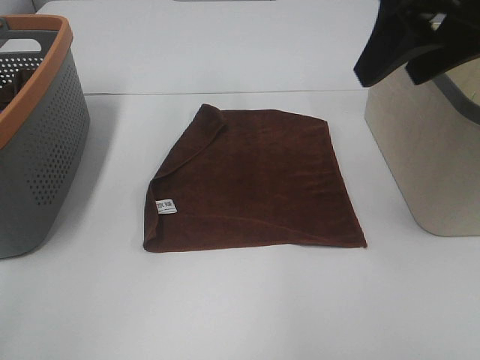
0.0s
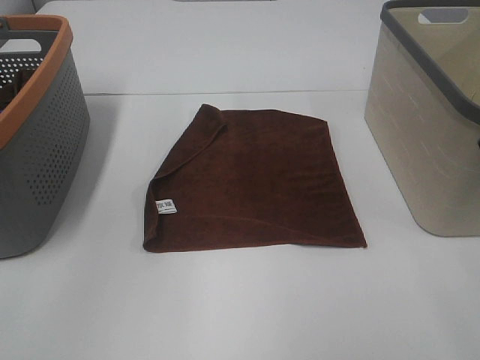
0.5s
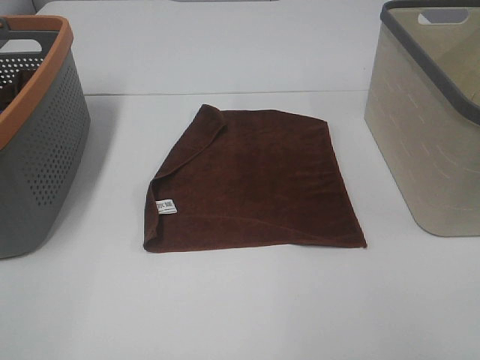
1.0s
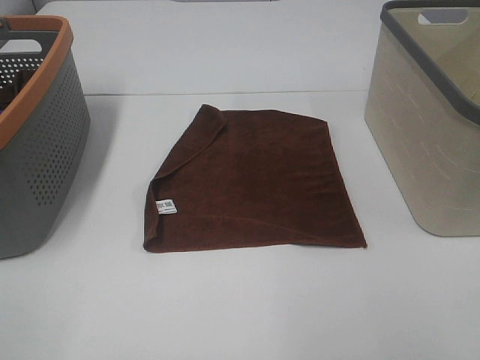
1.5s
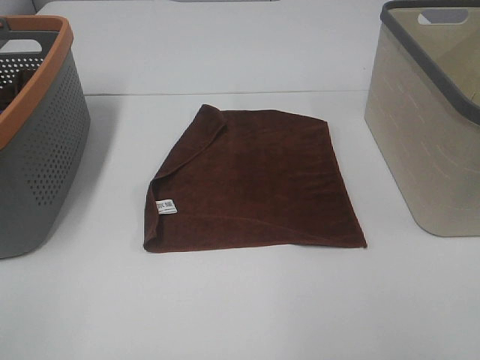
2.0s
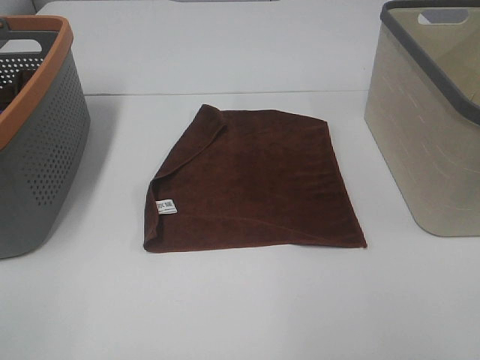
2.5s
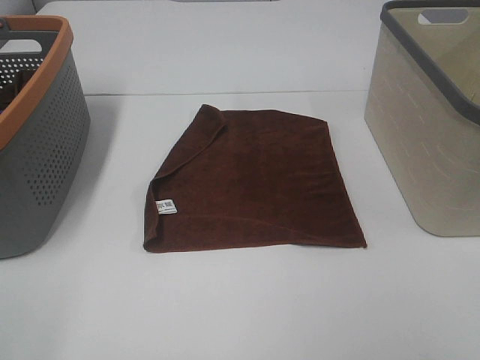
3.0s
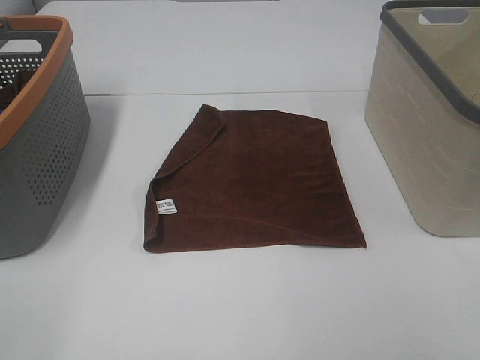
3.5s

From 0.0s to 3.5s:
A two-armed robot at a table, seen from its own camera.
Task of the whole recording: Remove the towel and place it.
From 0.0s to 2.0s: The left gripper is displaced backward, to the left and downward by some 40 cm. The right gripper goes roughly 25 cm backward.

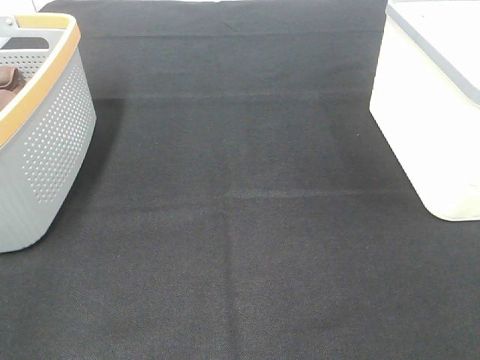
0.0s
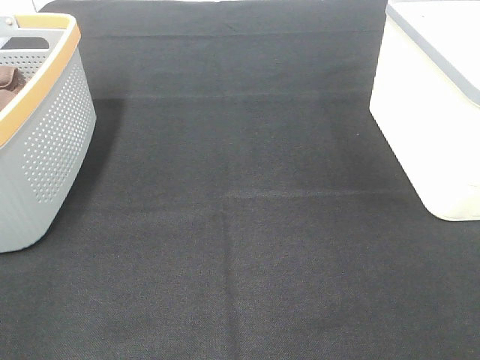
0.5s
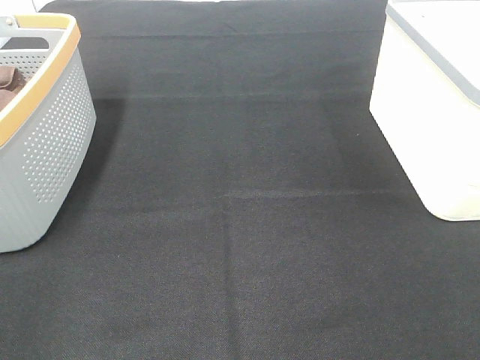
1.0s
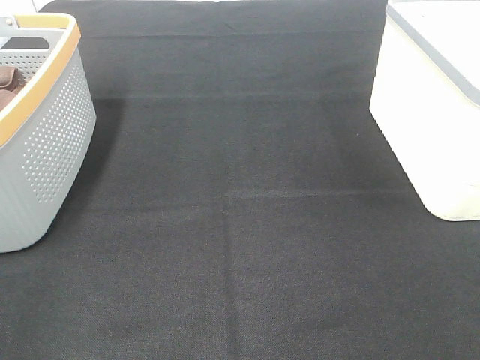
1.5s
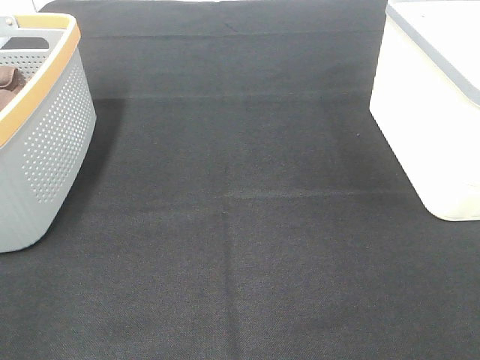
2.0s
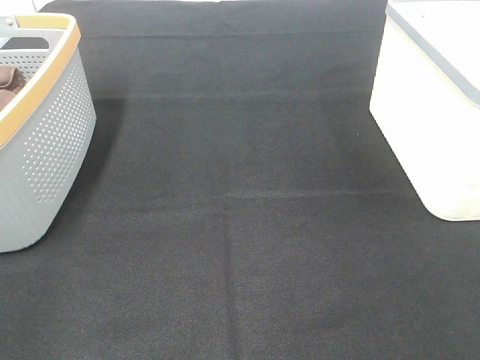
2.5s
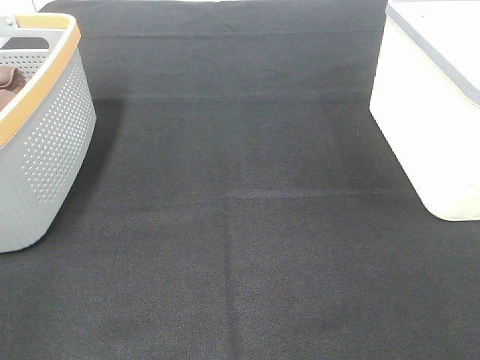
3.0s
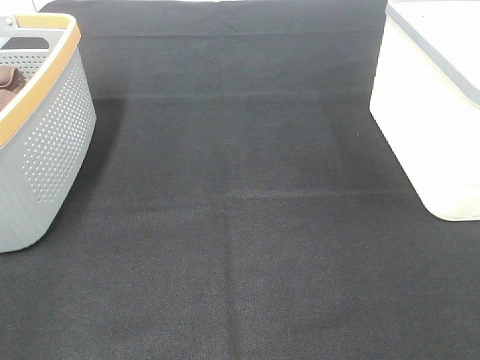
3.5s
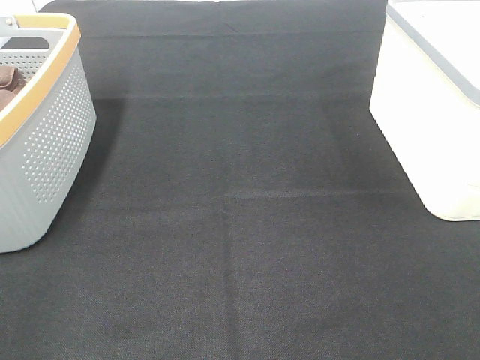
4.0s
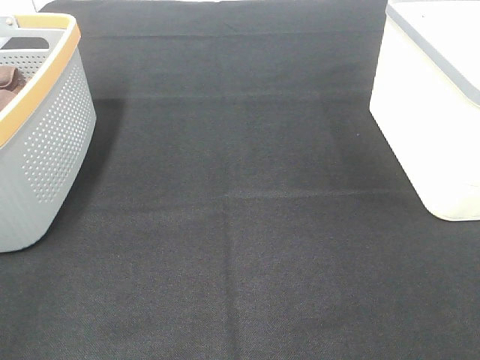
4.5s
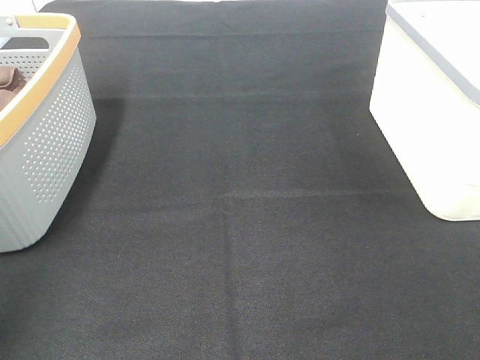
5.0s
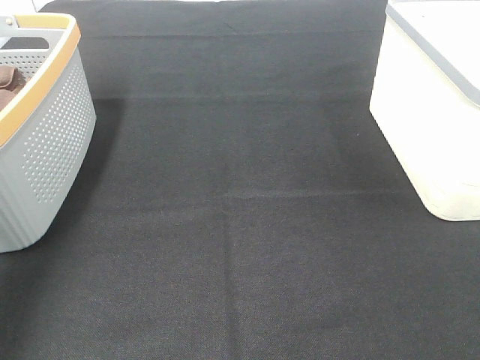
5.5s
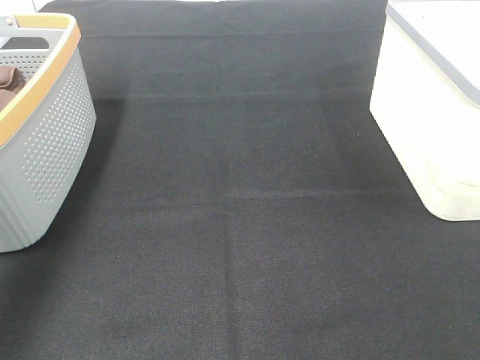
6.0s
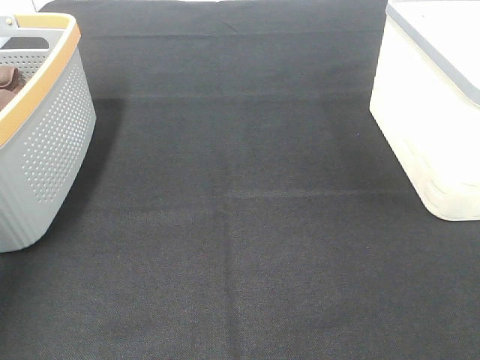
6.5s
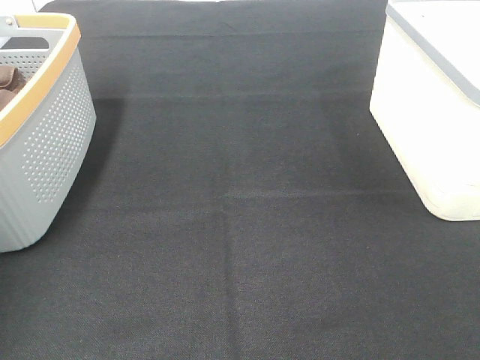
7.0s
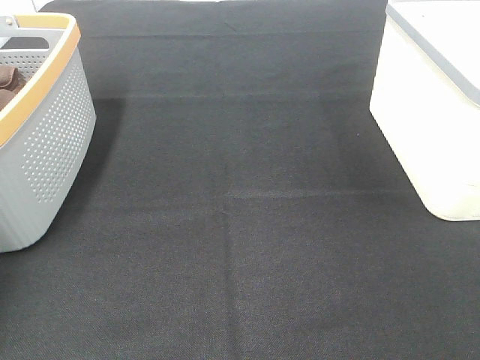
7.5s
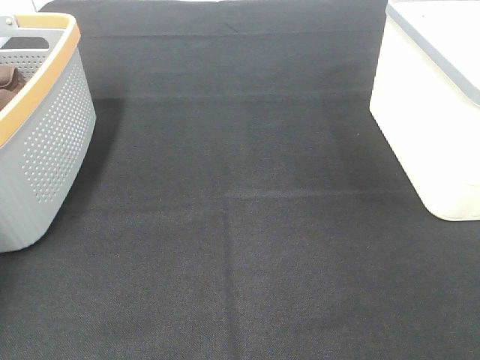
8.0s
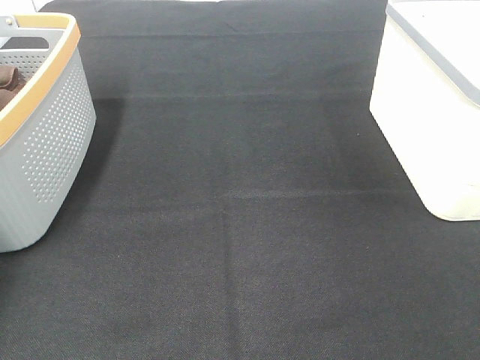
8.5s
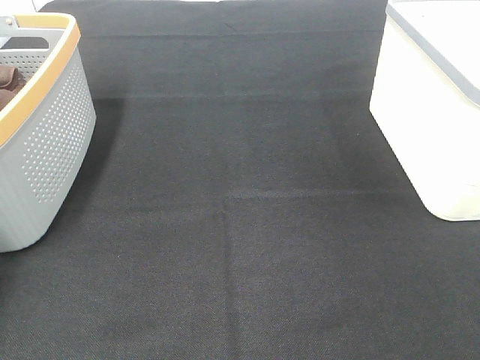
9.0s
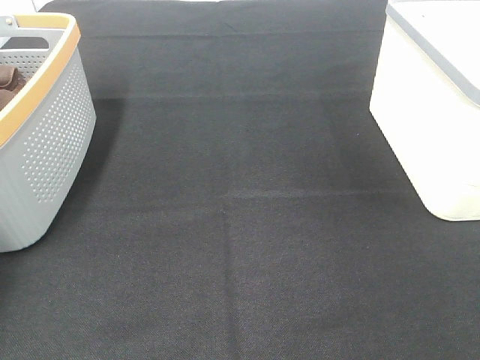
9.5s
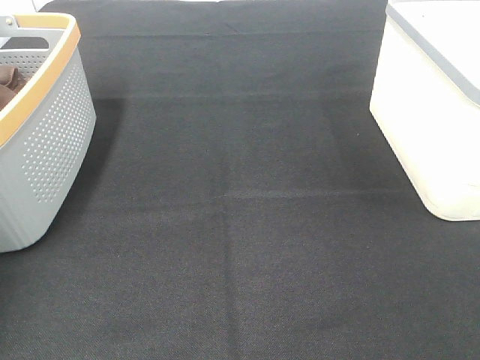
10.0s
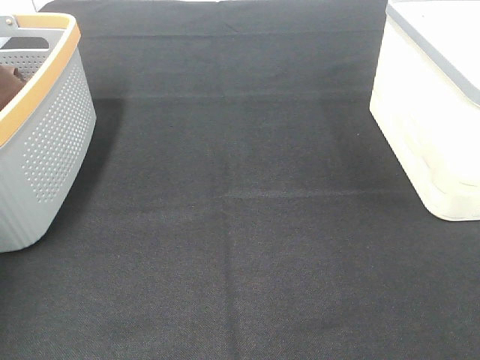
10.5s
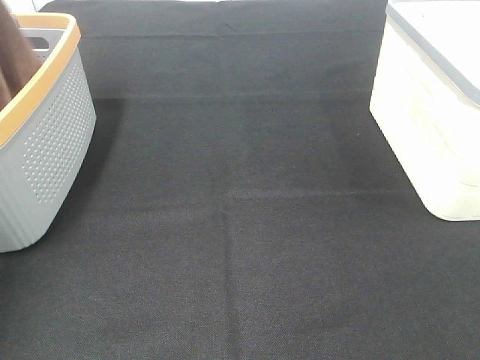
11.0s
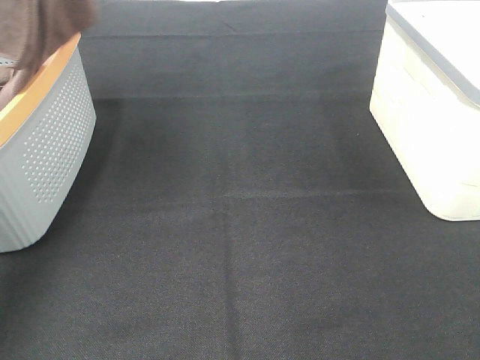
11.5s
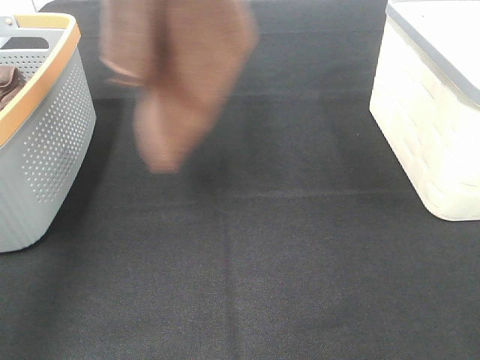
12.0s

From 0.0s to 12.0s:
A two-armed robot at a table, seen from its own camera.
Task of the whole recording: Remove the towel and place it.
From 0.0s to 4.0s: The two grippers keep their place.
From 4.0s to 6.0s: The left gripper goes about 30 cm forward.
From 6.0s to 8.0s: The left gripper travels forward, to the left and downward by about 20 cm.
From 10.0s to 12.0s: The left gripper goes roughly 30 cm to the right, upward and backward.

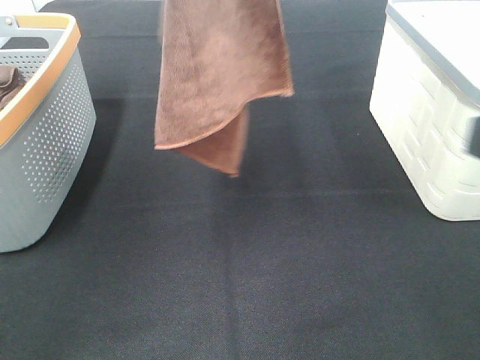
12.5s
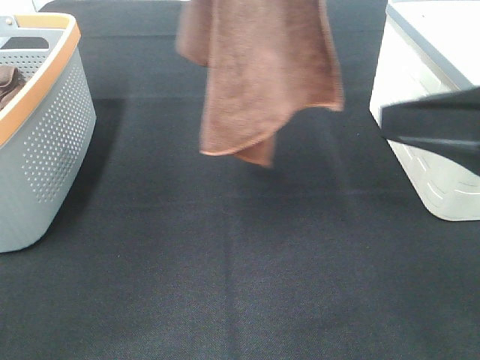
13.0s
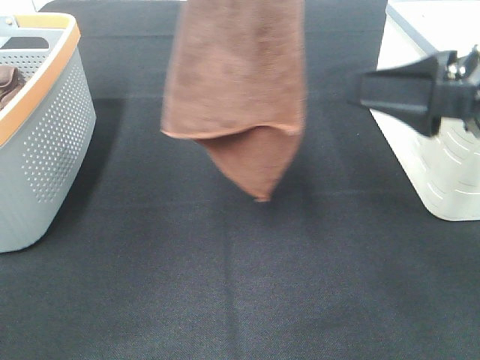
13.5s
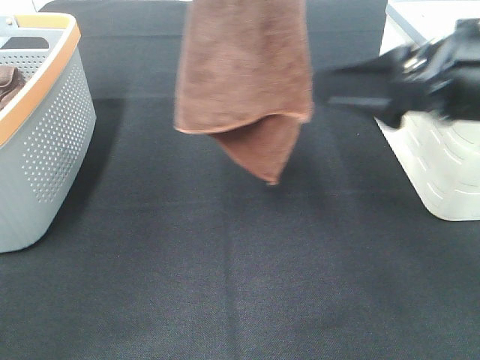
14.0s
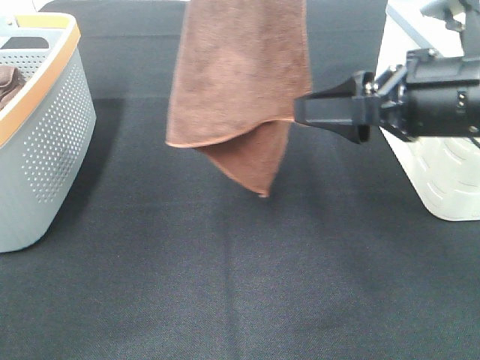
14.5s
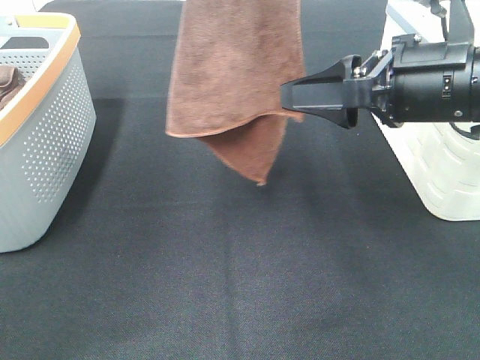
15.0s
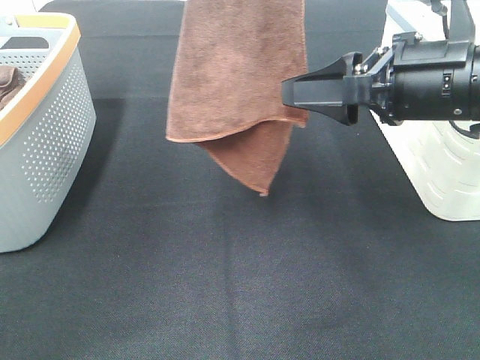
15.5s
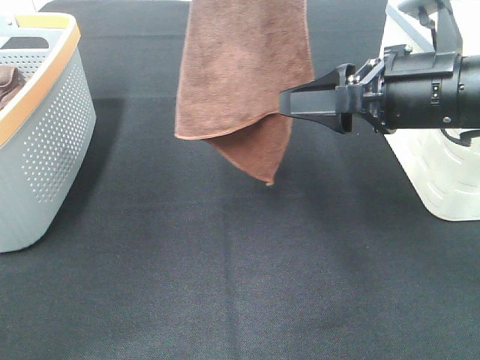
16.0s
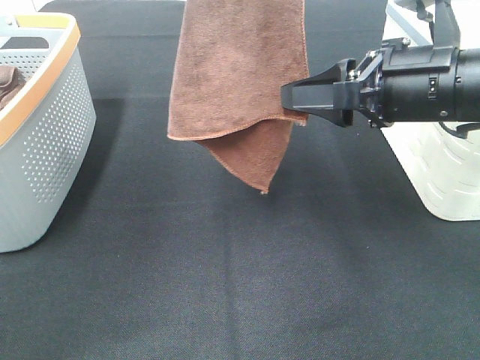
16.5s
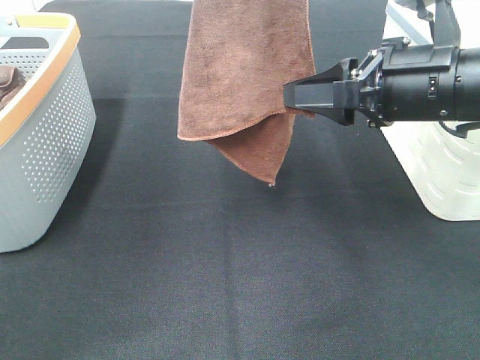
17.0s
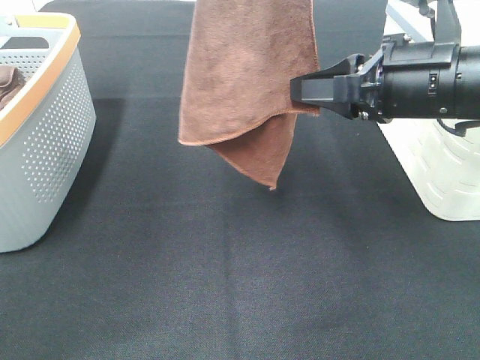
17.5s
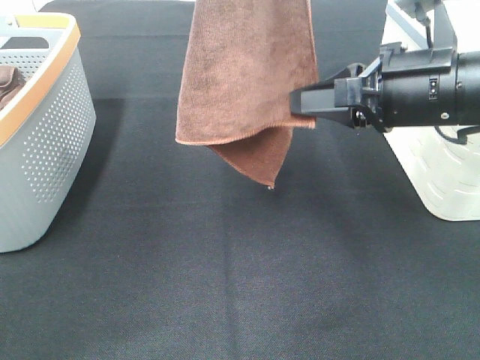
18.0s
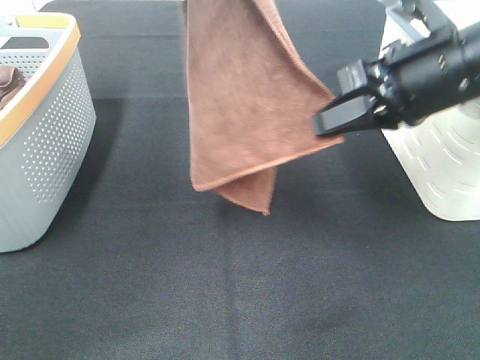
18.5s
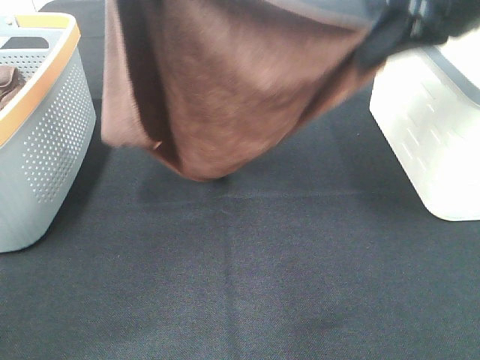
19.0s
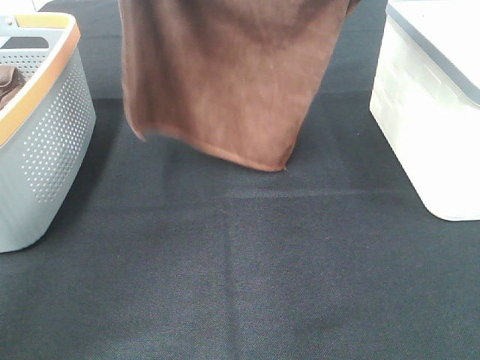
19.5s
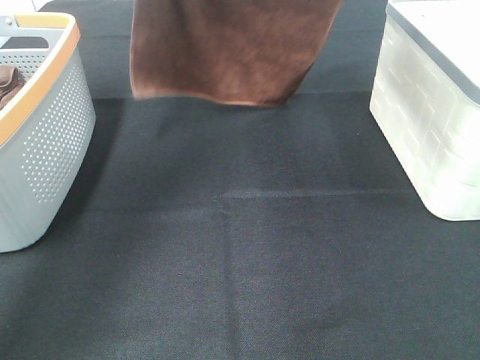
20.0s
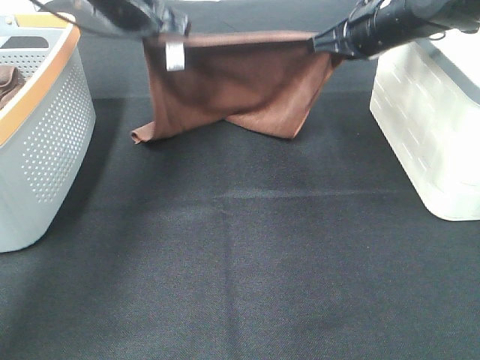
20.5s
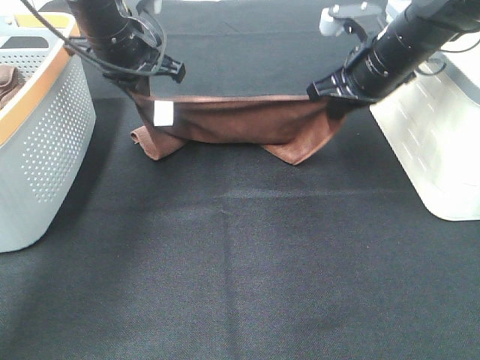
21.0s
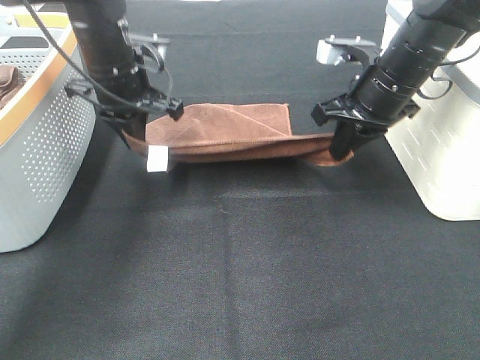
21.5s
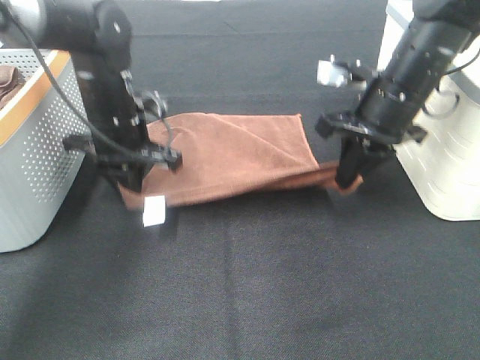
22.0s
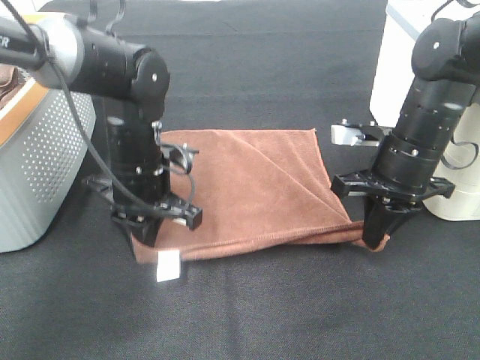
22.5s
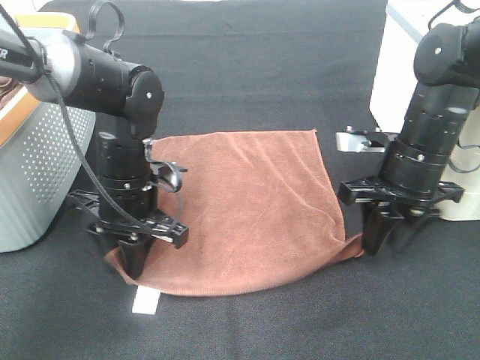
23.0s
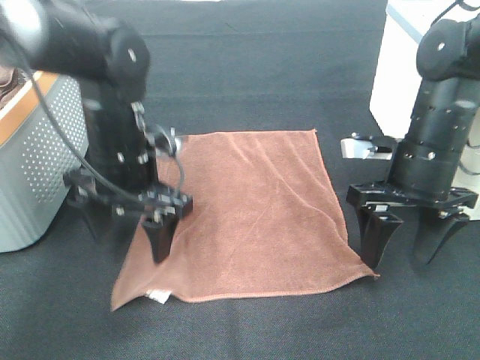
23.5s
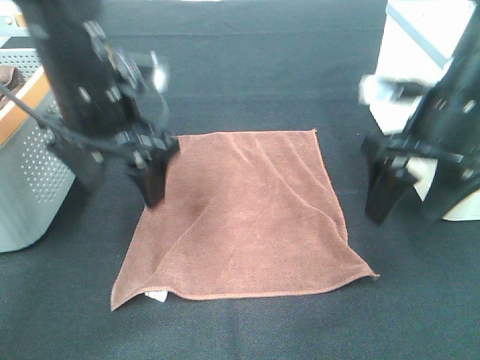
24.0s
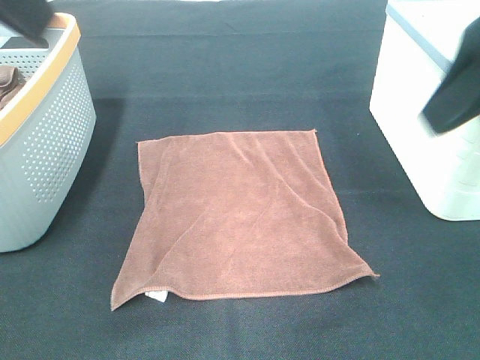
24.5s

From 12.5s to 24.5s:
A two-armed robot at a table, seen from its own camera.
Task of the whole recording: Remove the towel and place it.
Step, from 12.5s to 15.0s: Right hand: grab a corner of the brown towel and straighten it.
Step, from 15.5s to 18.5s: Left hand: spread the brown towel flat on the table.
Step, from 15.5s to 18.5s: Right hand: spread the brown towel flat on the table.
From 12.5s to 14.5s: The right gripper moves forward and downward, about 15 cm.
From 14.5s to 16.5s: There are only small adjustments of the grippers.
From 16.5s to 18.5s: The right gripper closes up.
From 18.5s to 20.5s: The left gripper goes roughly 25 cm downward and forward. The right gripper is displaced forward by roughly 15 cm.
From 20.5s to 22.5s: The left gripper heads downward and backward, covering about 20 cm; the right gripper travels backward and downward by some 15 cm.
From 22.5s to 24.5s: The grippers both shift upward and backward by some 30 cm. The left gripper opens. Meanwhile the right gripper opens up.
